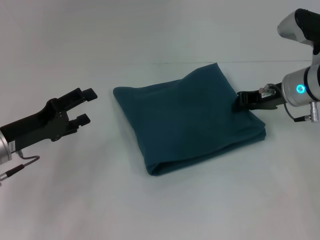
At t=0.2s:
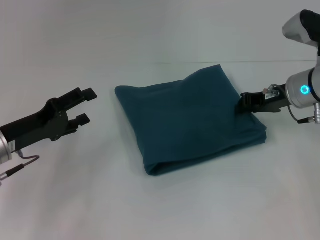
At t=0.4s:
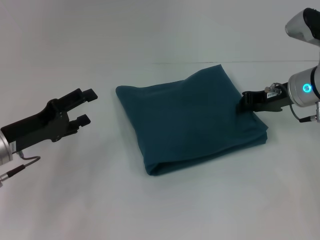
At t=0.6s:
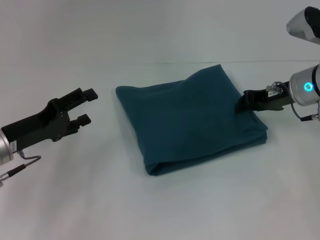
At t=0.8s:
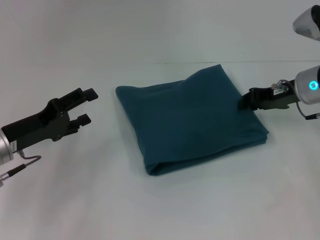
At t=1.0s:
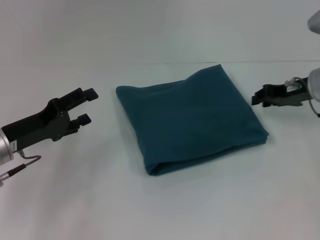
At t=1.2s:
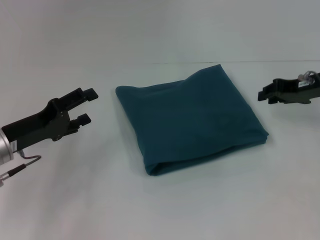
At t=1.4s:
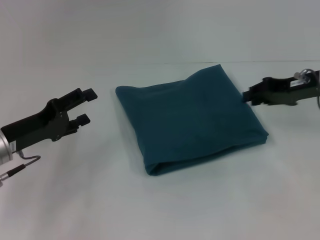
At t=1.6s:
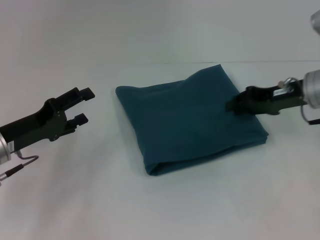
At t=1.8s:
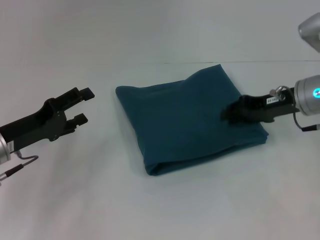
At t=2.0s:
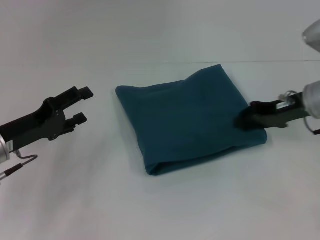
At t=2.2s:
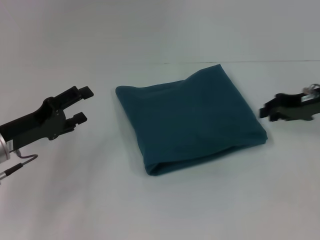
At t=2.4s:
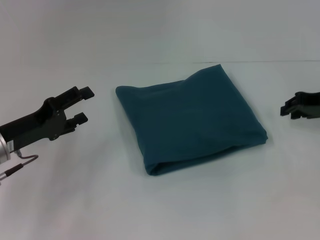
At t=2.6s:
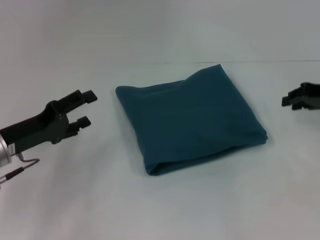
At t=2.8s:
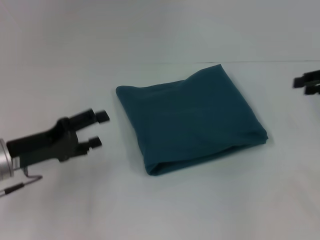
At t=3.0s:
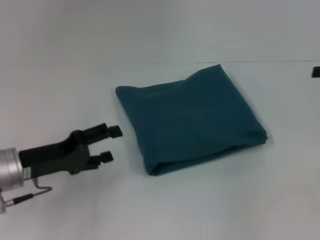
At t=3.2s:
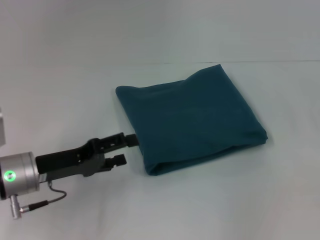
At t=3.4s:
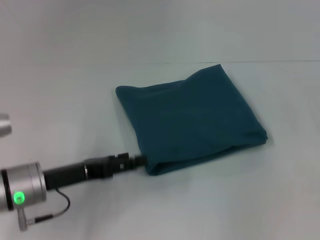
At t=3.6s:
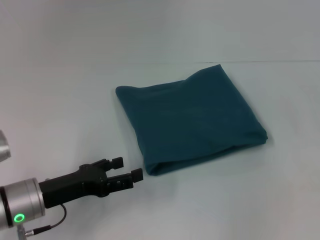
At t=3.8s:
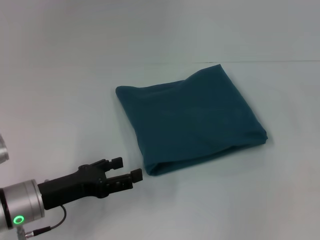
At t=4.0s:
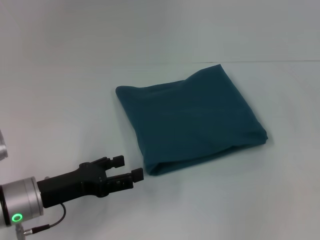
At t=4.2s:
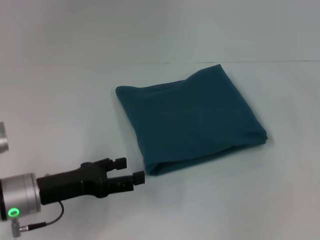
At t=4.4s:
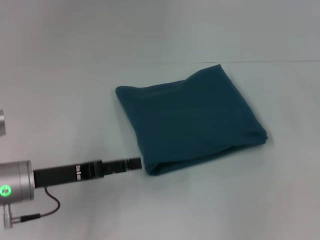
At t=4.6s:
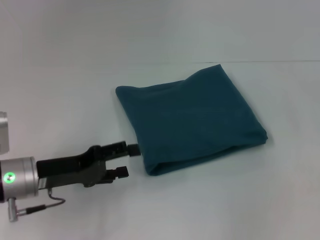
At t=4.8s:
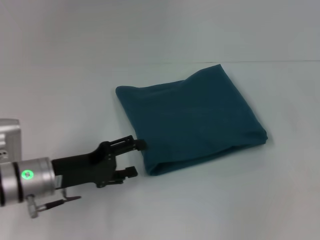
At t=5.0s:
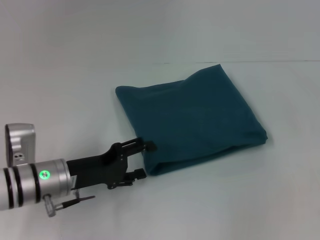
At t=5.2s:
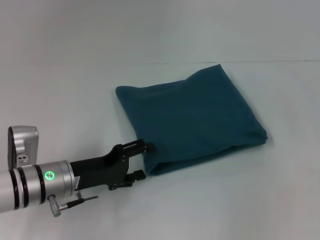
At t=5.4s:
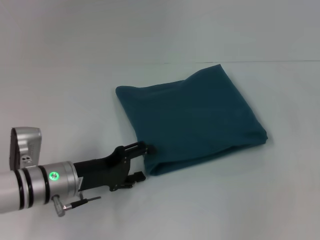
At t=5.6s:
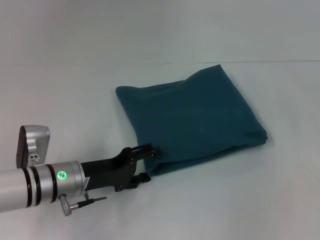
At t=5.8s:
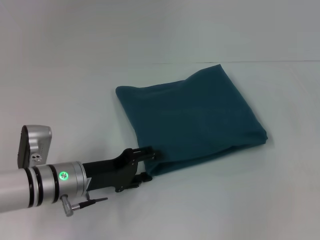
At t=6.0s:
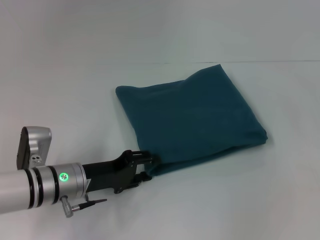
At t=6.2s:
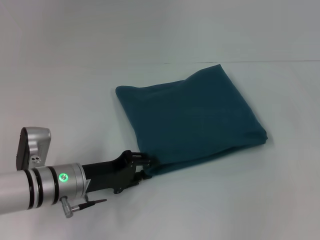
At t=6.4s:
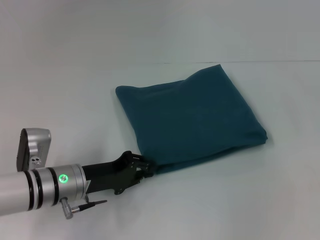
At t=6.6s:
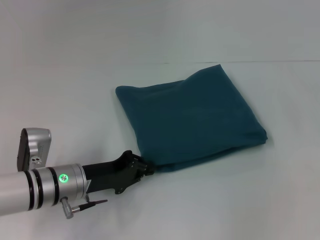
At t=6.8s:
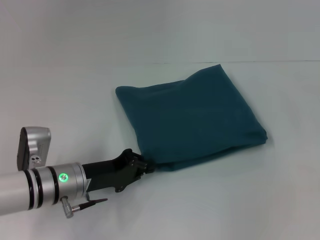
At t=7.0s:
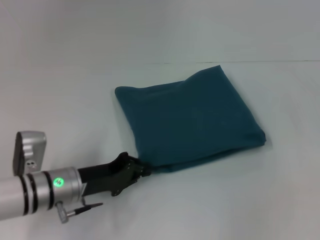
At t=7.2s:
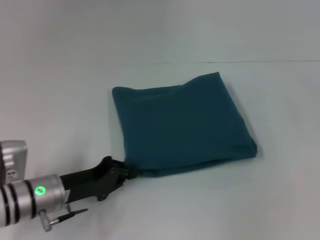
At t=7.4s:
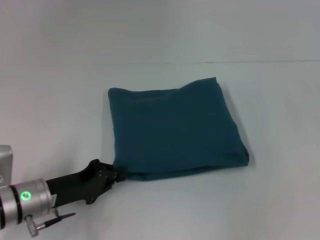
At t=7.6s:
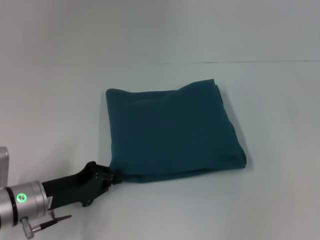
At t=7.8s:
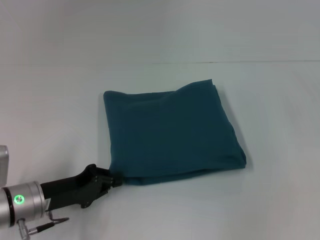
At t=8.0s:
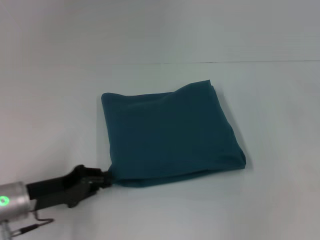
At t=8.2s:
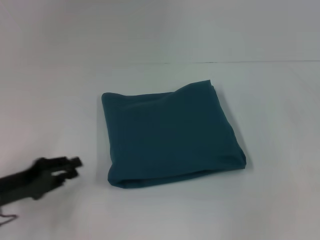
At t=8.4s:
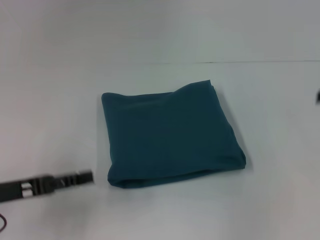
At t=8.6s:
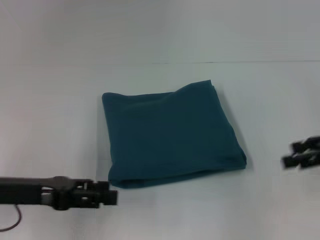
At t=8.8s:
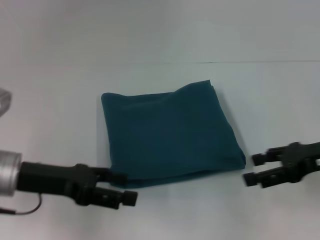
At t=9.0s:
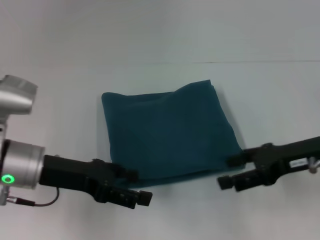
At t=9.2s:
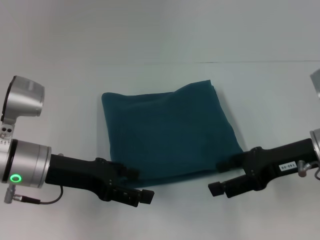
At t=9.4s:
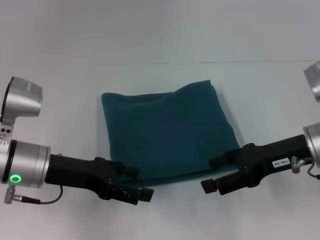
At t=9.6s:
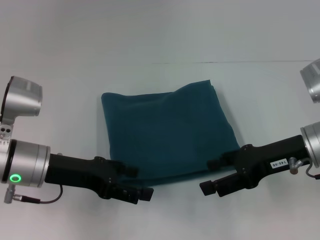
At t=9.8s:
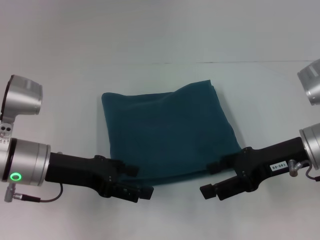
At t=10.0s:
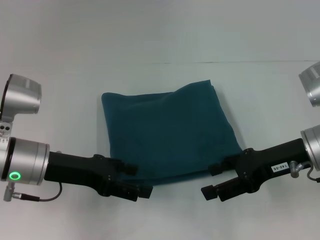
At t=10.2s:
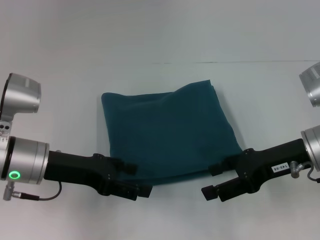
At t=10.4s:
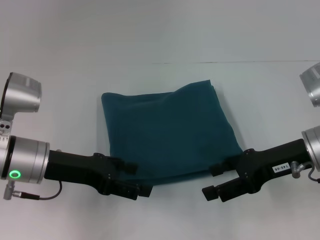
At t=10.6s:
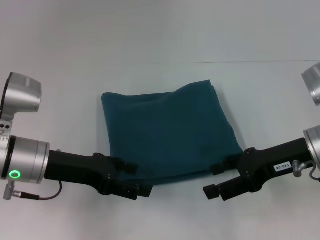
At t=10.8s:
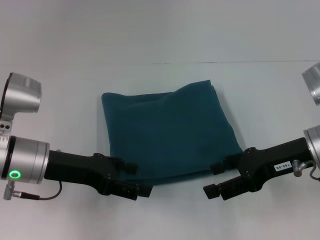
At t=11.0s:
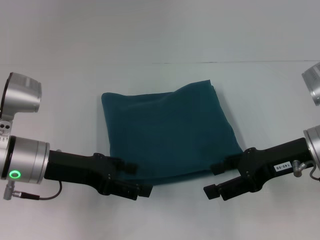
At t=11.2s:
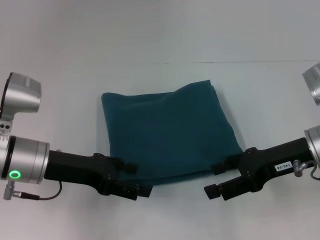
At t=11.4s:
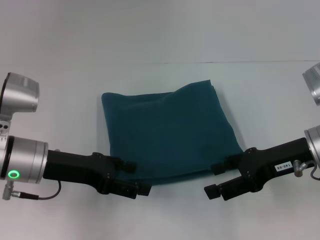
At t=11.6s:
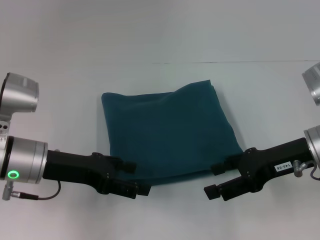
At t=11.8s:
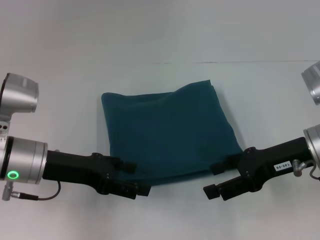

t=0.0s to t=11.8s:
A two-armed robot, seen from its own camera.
t=0.0s to t=1.4s: The right gripper shifts by some 5 cm.
t=1.4s to t=3.0s: The right gripper shifts roughly 10 cm to the right.
t=3.0s to t=4.4s: The right gripper opens.
t=4.4s to t=6.0s: The left gripper moves to the right, some 5 cm.
t=6.0s to t=7.4s: The left gripper moves roughly 5 cm, and closes up.
t=7.4s to t=8.8s: The right gripper goes some 15 cm to the left and downward; the left gripper travels upward by approximately 10 cm, and opens.
t=8.8s to t=10.4s: The right gripper moves to the left, about 5 cm.
t=10.4s to t=11.8s: Neither gripper changes place.

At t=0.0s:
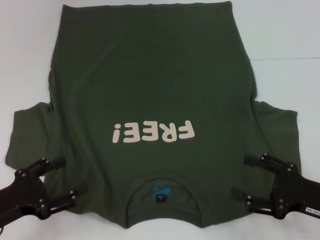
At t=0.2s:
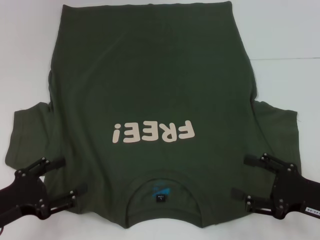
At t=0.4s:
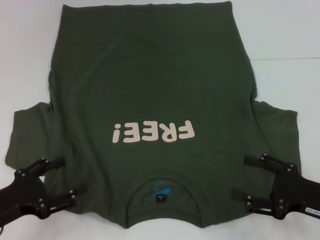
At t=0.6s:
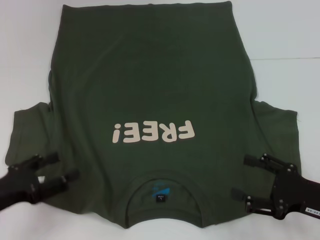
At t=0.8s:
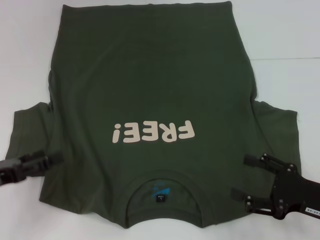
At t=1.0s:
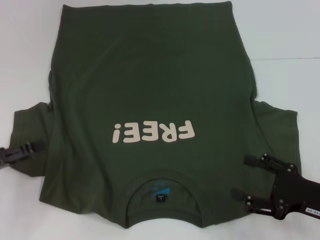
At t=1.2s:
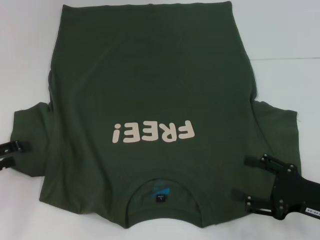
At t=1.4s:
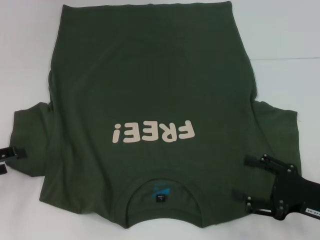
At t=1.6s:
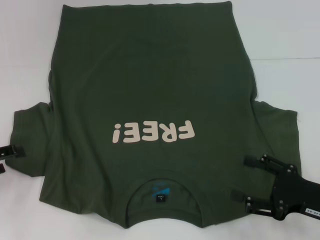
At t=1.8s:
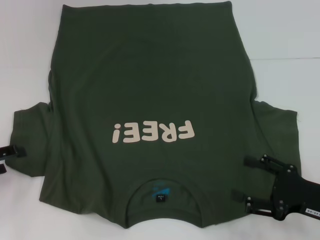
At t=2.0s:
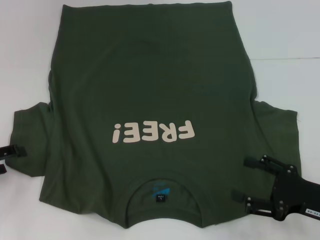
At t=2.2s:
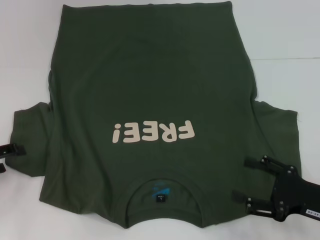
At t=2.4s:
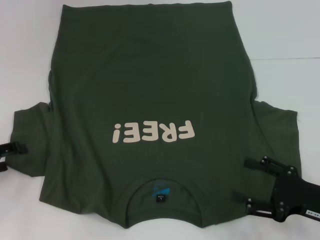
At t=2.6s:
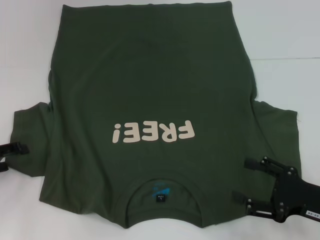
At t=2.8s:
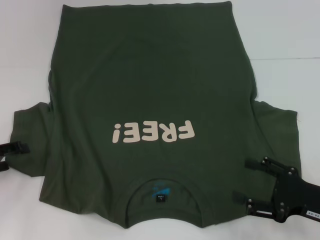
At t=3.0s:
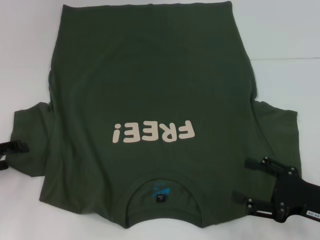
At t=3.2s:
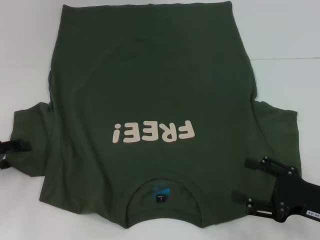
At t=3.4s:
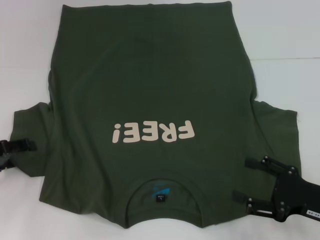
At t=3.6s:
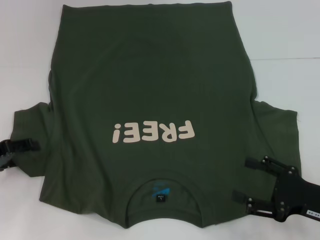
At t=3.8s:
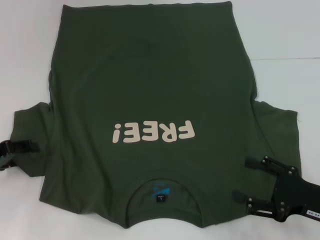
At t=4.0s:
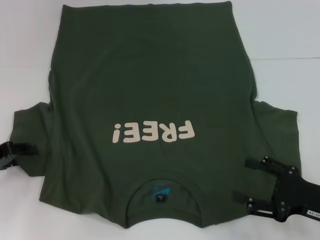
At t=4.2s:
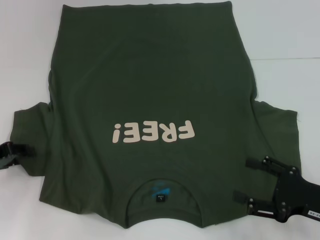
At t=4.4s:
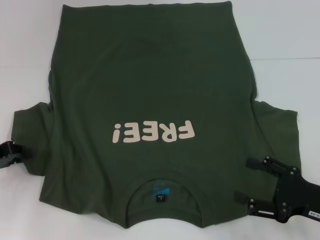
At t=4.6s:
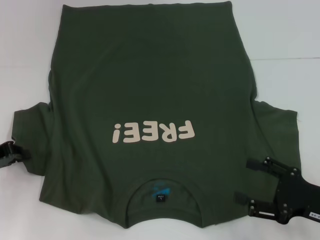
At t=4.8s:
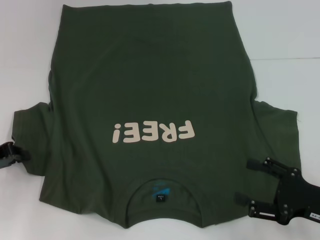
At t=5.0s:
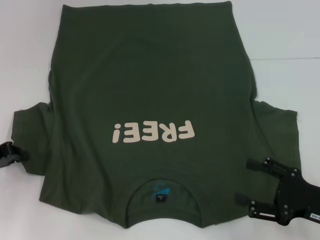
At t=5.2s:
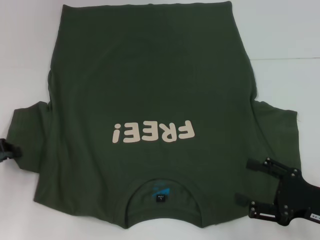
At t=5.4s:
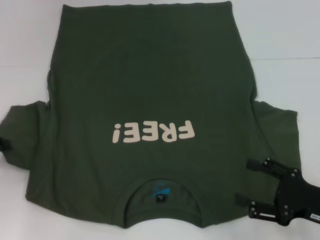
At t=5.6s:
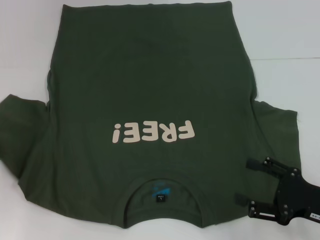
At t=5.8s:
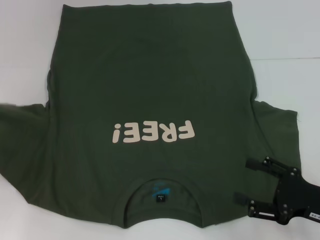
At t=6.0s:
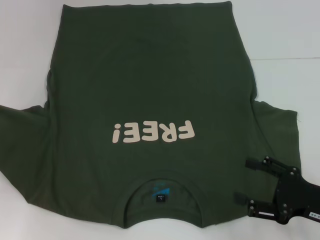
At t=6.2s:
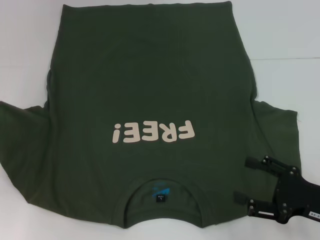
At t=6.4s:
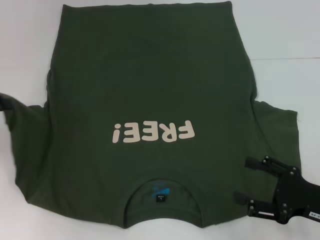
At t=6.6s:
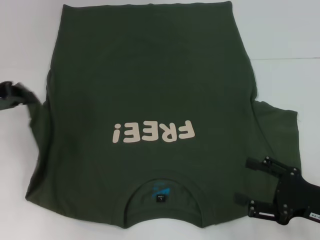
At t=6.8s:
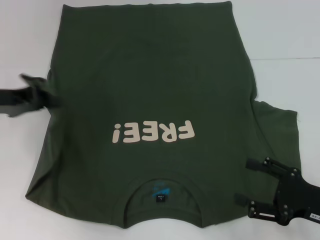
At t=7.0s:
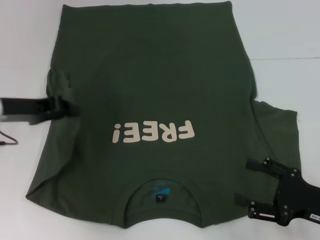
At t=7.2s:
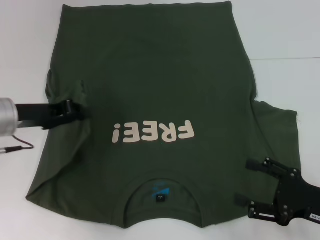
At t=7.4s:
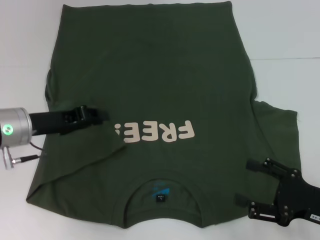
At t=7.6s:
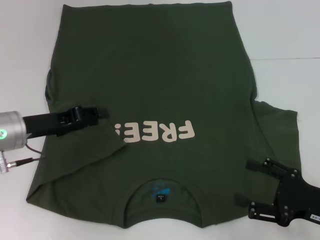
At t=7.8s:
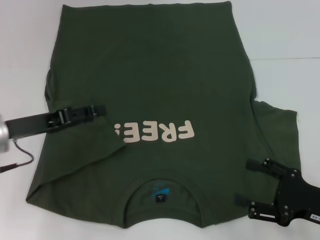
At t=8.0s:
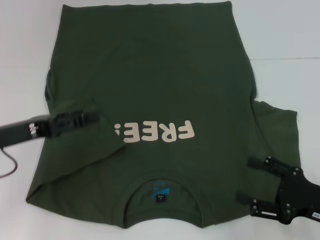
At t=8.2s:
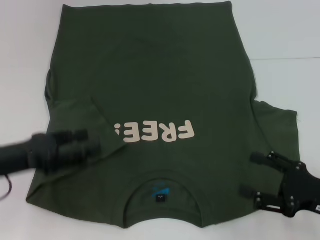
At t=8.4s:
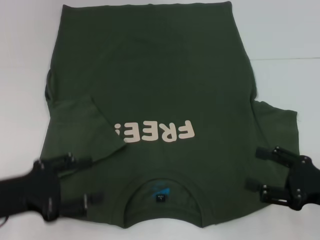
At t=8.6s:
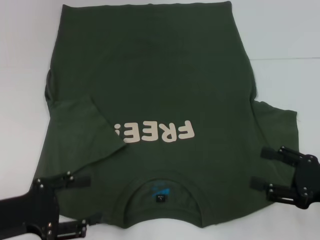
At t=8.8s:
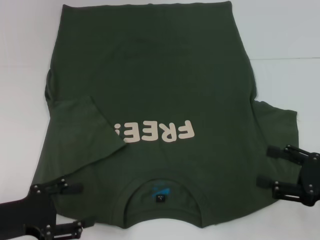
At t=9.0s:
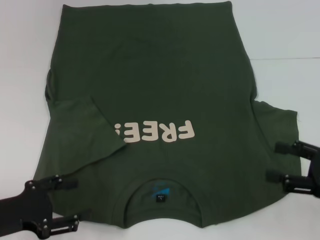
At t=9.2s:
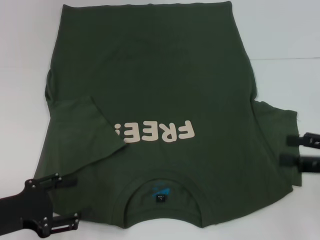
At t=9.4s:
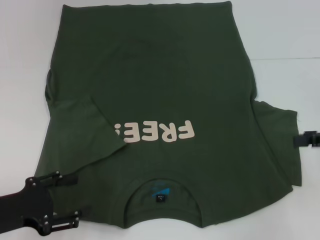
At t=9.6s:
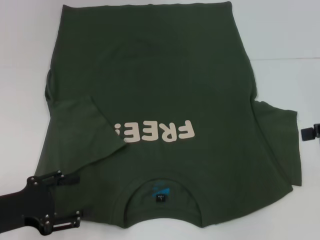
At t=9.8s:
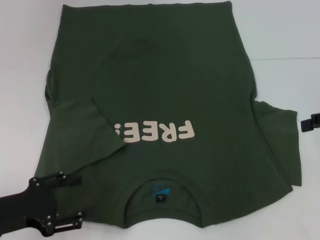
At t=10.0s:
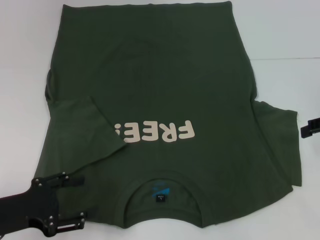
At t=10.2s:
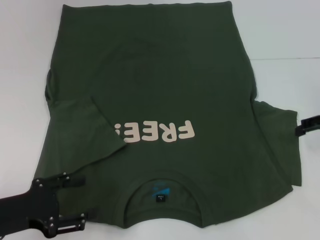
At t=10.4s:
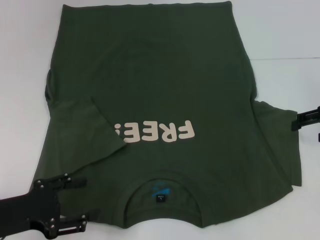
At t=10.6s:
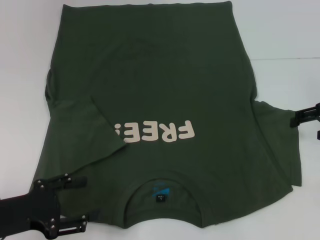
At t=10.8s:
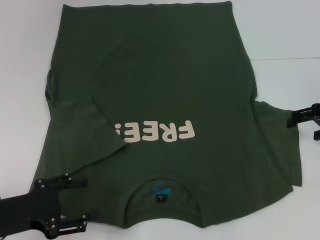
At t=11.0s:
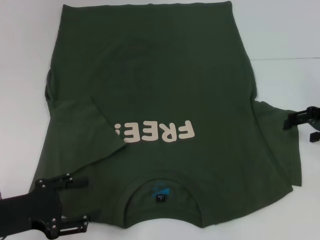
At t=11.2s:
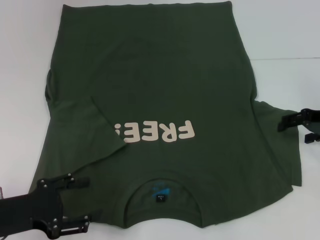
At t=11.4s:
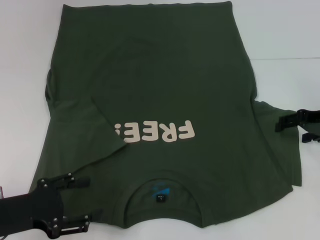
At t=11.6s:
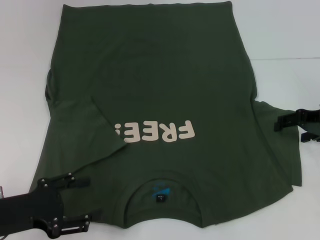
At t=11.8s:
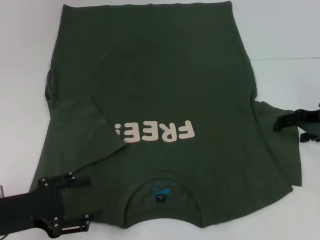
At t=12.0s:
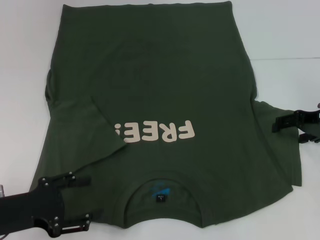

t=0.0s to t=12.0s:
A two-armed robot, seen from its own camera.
Step, t=0.0s to t=7.2s: Fold the bottom left sleeve with your left hand.
t=0.0s to t=1.6s: The left gripper travels to the left and forward by some 10 cm.
t=1.6s to t=3.0s: There are only small adjustments of the grippers.
t=3.0s to t=4.4s: The left gripper closes up.
t=4.4s to t=6.0s: The left gripper shifts about 5 cm upward, and closes.
t=6.0s to t=7.6s: The left gripper shifts about 15 cm to the right.
t=7.6s to t=9.0s: The right gripper moves some 5 cm, while the left gripper shifts about 15 cm backward, and opens.
t=9.0s to t=10.4s: The right gripper travels forward and upward by some 15 cm.
t=10.4s to t=12.0s: The grippers move only a little.
